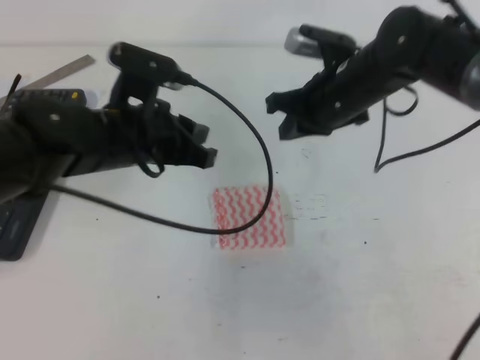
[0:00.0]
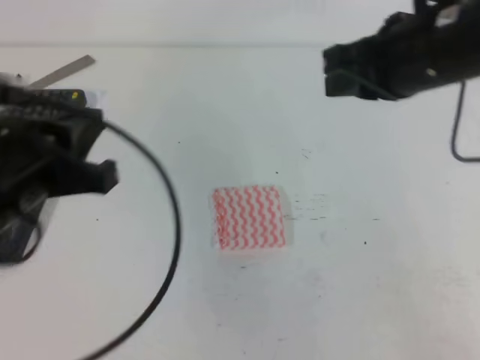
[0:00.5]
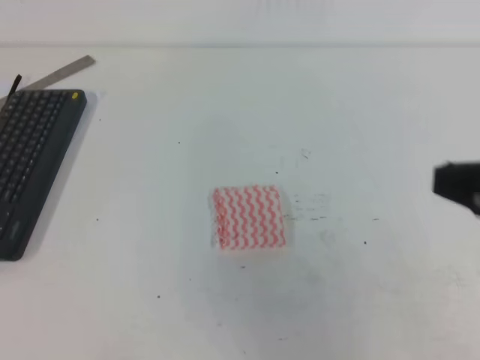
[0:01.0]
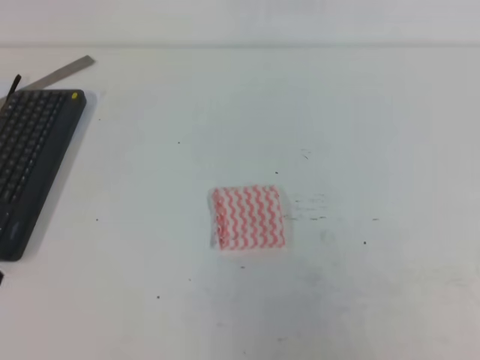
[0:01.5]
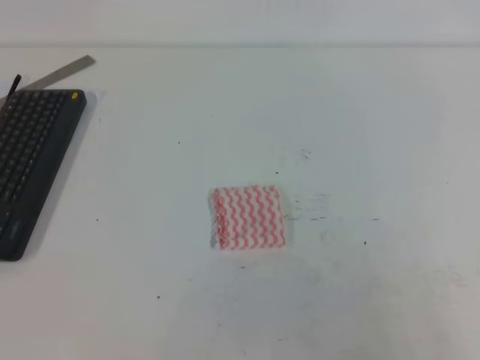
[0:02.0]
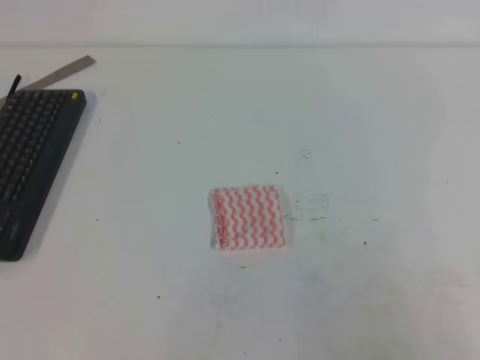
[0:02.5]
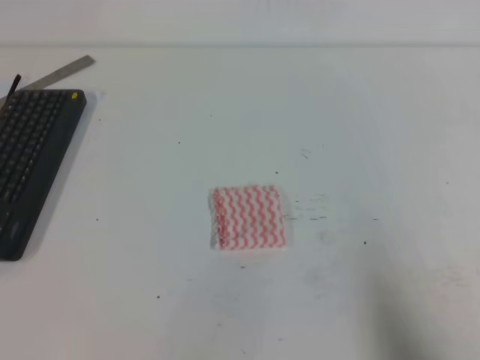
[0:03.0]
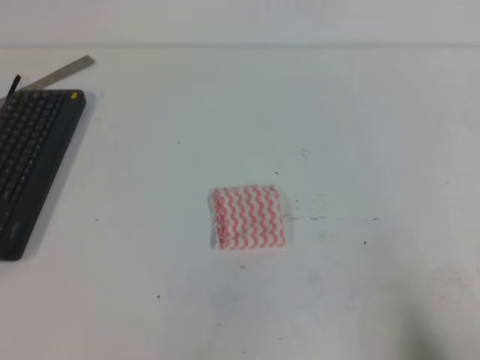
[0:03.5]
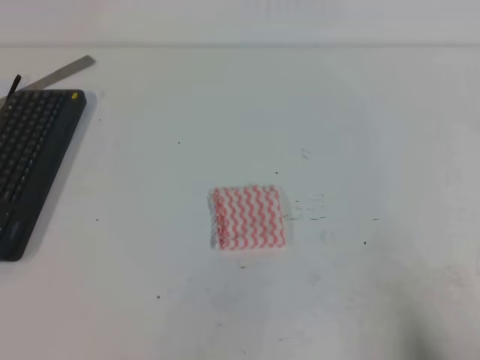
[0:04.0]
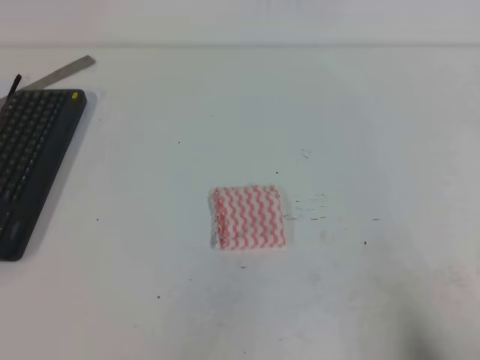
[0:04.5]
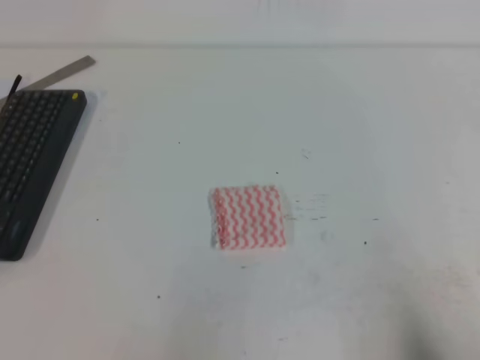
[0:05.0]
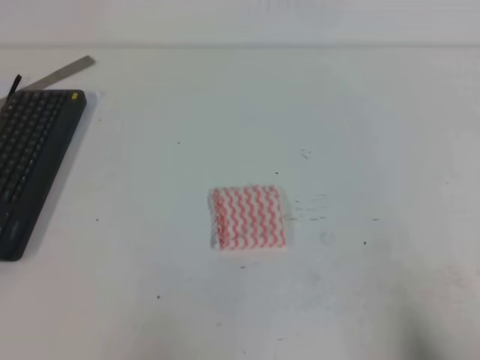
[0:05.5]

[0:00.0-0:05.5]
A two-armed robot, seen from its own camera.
Step, 0:00.0 to 0:05.5: Fold the towel.
0:00.0 to 0:02.0: The right gripper moves backward and to the right, about 40 cm, while the left gripper moves backward and to the left, about 30 cm.
0:02.0 to 0:03.5: The right gripper is displaced downward by about 10 cm.
